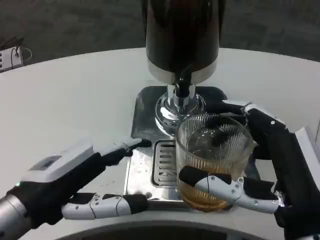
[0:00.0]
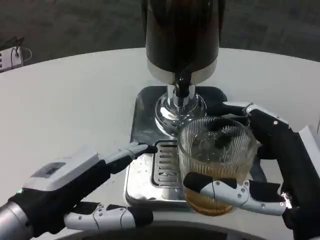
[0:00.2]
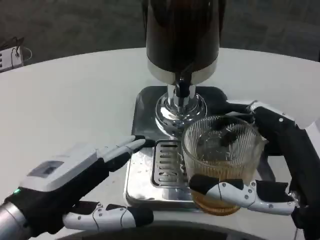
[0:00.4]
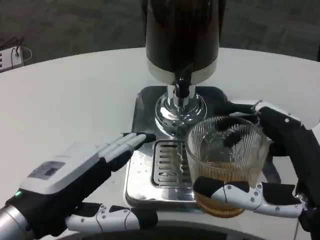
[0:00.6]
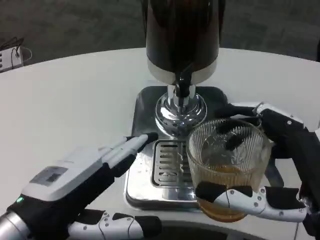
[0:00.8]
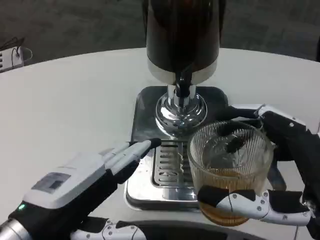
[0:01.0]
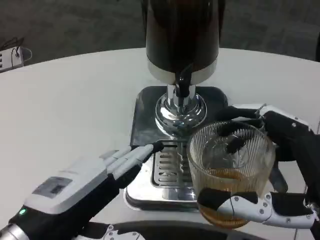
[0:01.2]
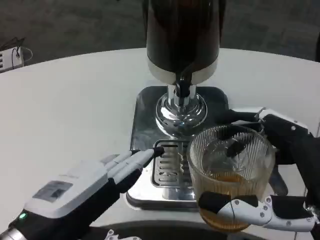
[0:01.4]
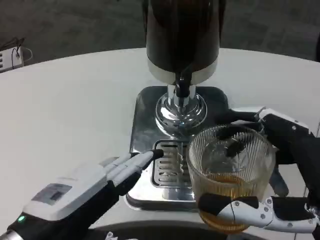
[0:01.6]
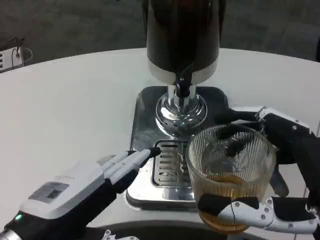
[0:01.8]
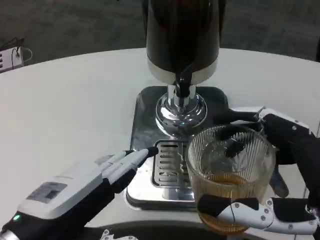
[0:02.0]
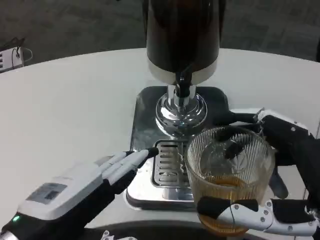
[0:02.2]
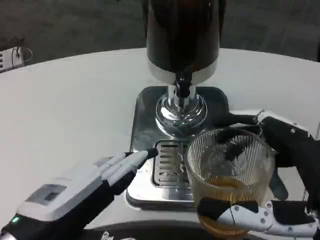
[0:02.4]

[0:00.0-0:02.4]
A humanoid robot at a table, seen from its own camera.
Task of the whole recording: Grasp the cup under the faucet to collect the drink, then remove the cup.
0:01.2 to 0:02.4: The two hands keep their place.

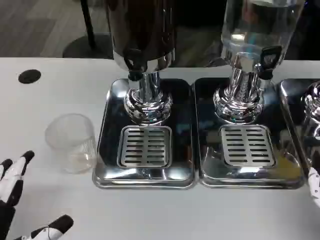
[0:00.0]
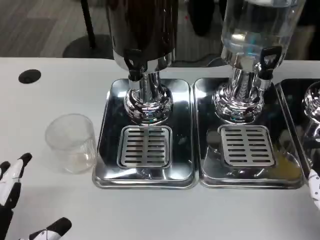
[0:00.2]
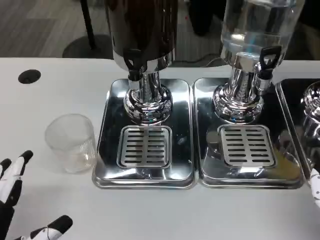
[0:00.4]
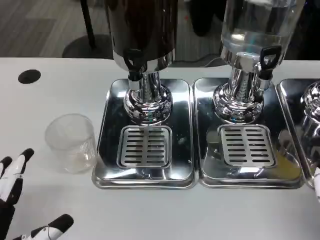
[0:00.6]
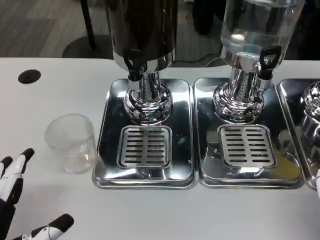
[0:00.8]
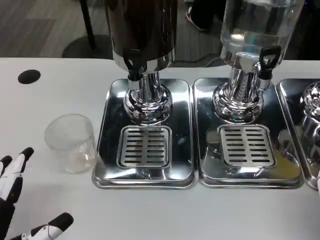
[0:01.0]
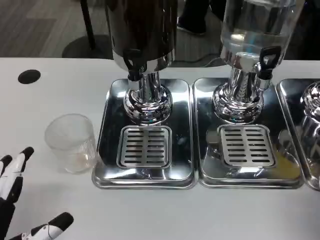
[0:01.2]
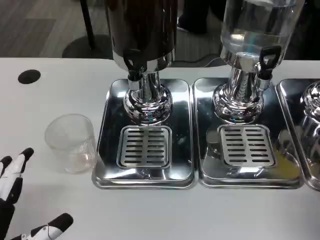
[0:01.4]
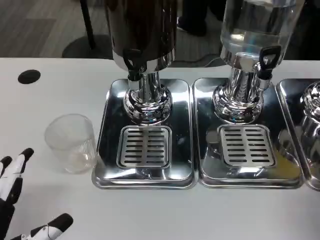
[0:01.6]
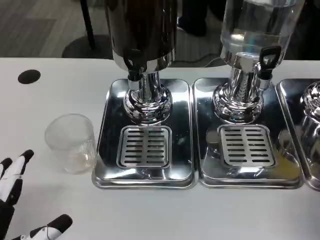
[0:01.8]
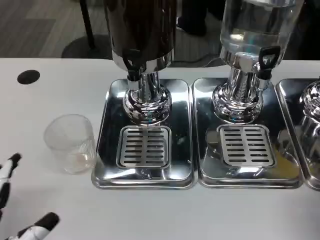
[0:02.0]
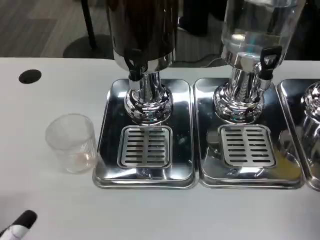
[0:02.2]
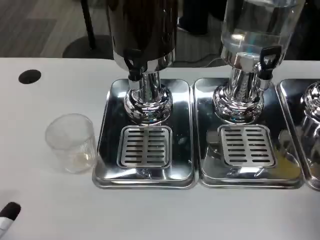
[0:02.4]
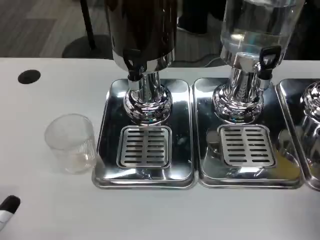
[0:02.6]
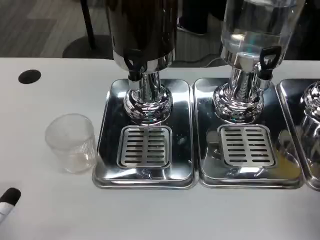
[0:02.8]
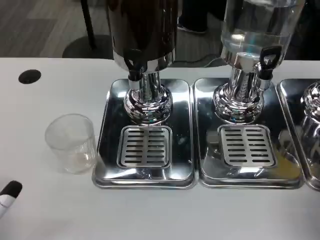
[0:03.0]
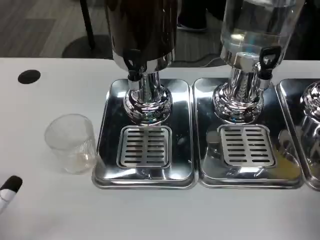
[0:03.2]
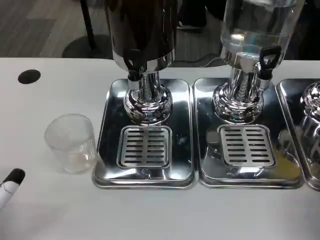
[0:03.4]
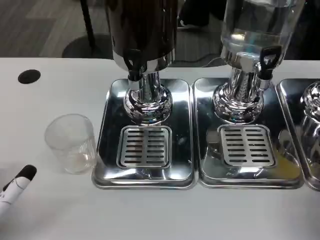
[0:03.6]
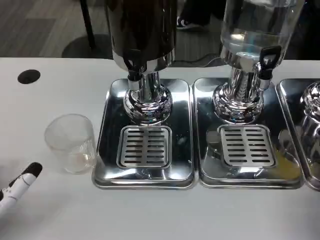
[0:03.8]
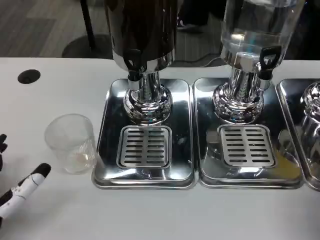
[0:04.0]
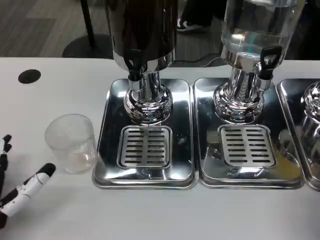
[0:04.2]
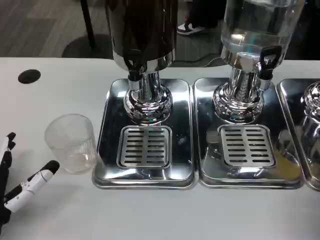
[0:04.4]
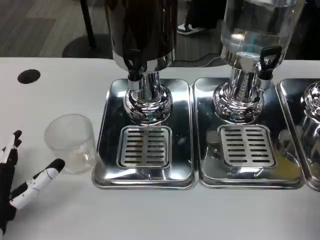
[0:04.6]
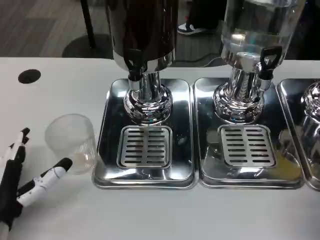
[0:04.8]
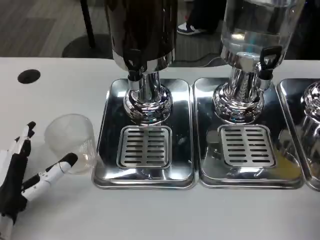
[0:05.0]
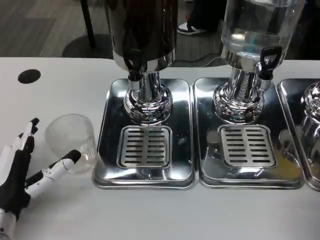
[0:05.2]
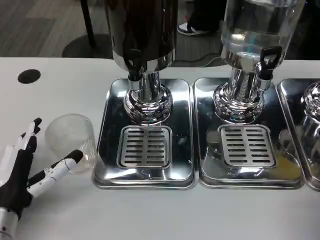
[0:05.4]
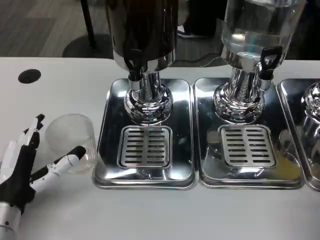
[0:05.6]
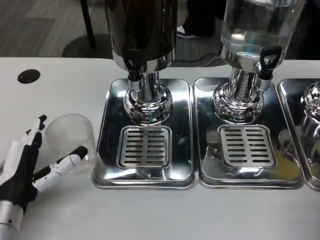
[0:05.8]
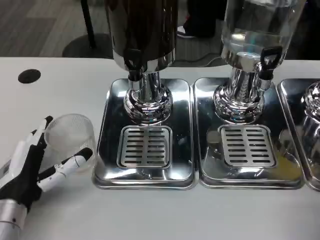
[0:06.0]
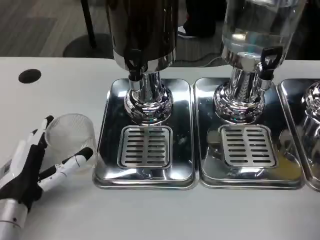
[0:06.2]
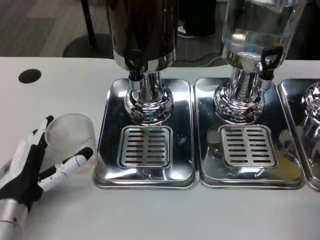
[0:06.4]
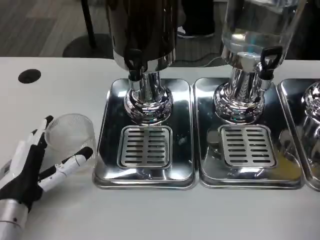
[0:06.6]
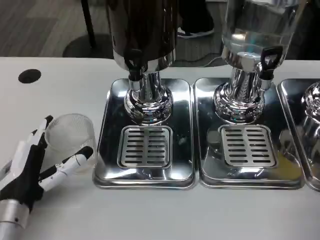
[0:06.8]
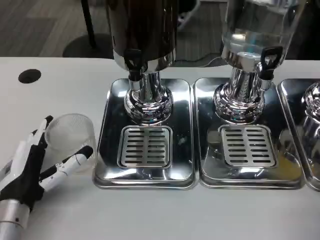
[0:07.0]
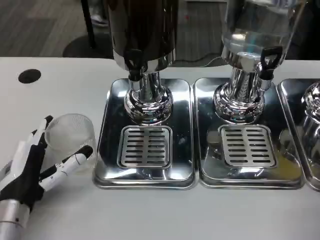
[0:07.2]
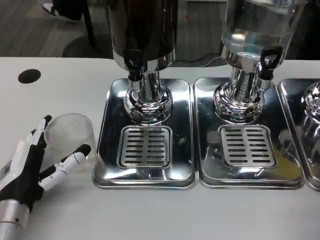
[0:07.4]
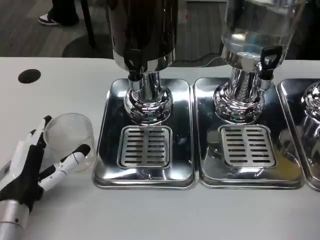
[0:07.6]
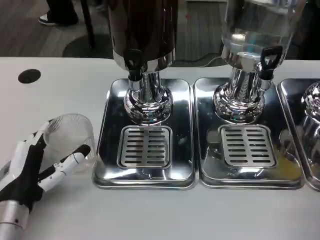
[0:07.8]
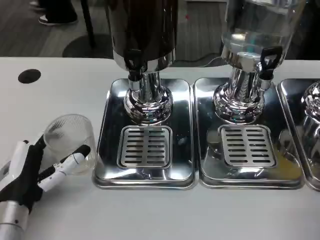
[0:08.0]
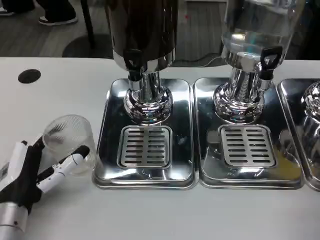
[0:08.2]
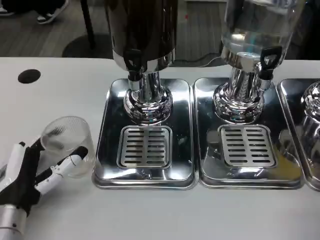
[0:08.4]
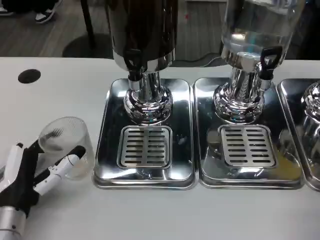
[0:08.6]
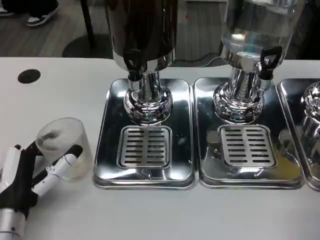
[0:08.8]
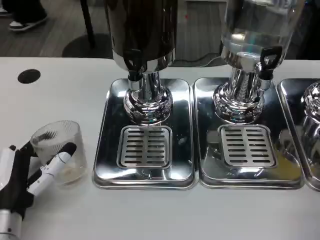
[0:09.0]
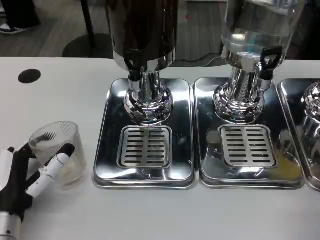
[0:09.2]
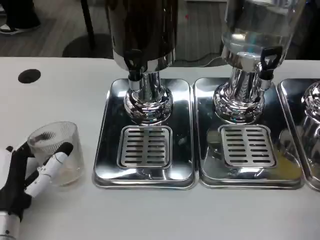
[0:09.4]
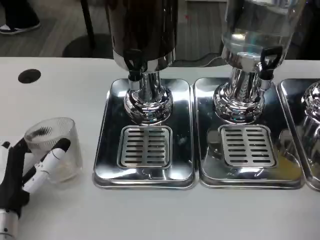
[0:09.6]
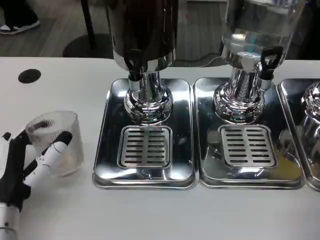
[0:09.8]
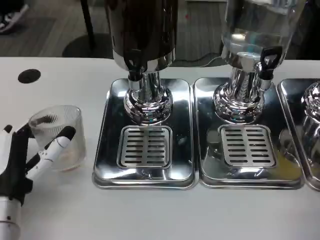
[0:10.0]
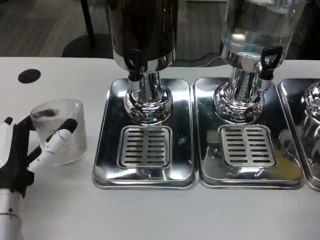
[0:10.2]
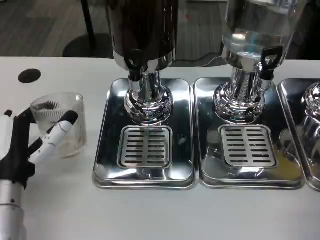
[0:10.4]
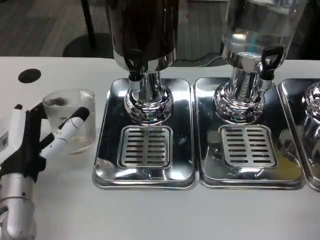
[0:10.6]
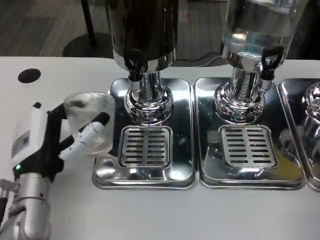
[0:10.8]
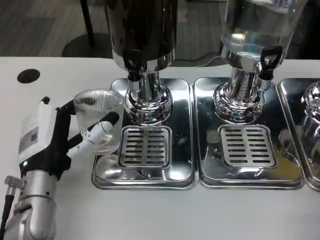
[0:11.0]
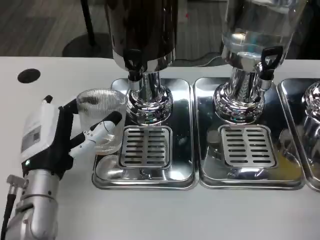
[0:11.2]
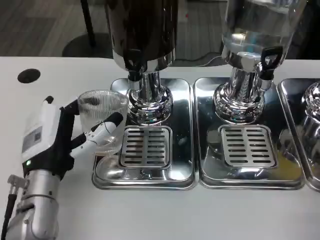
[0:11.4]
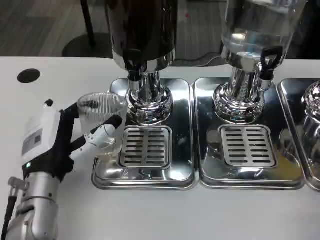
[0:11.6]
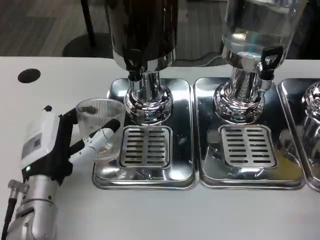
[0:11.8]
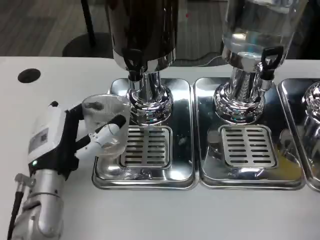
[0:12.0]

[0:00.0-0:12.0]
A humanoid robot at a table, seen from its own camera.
Task of the whole recording: Grasp the cup under the faucet to collect the drink, then remove the cup.
0:00.0 to 0:01.6: Both hands stay about where they are.
0:03.0 to 0:04.4: The left hand is displaced forward by some 5 cm.
0:04.4 to 0:06.0: The hands make only small movements.
0:06.0 to 0:07.6: Both hands stay put.
0:07.6 to 0:10.4: There are only small adjustments of the hands.
0:10.4 to 0:12.0: The left hand ends up roughly 5 cm from where it was.

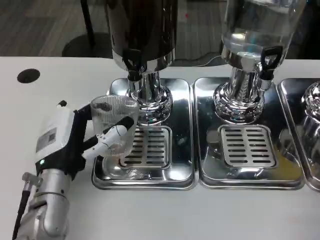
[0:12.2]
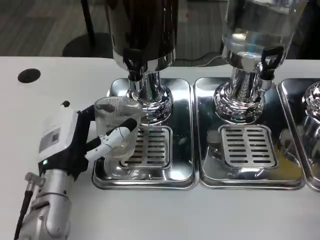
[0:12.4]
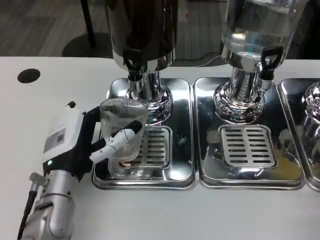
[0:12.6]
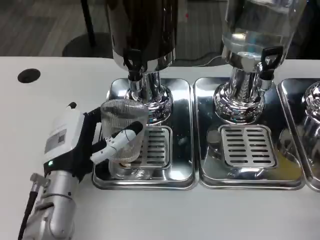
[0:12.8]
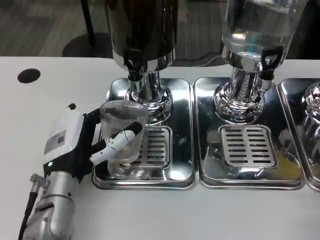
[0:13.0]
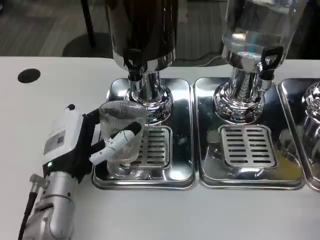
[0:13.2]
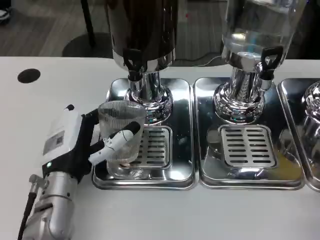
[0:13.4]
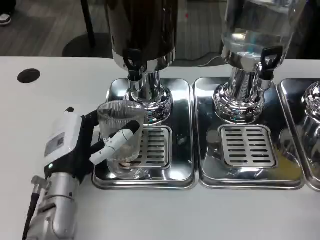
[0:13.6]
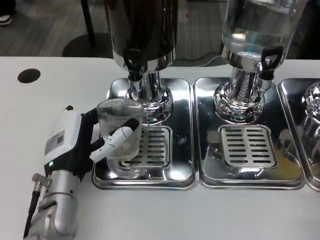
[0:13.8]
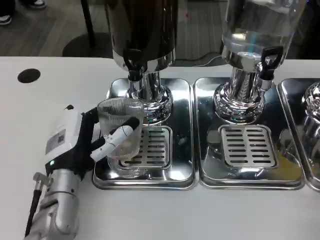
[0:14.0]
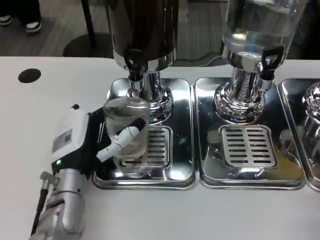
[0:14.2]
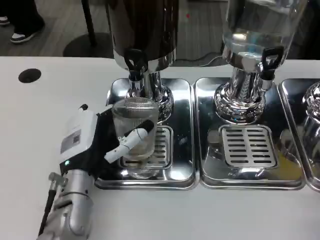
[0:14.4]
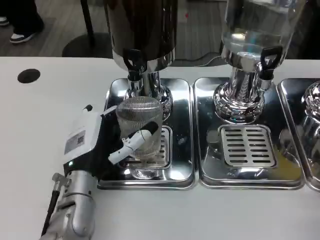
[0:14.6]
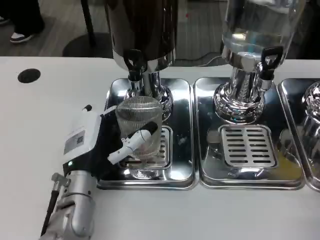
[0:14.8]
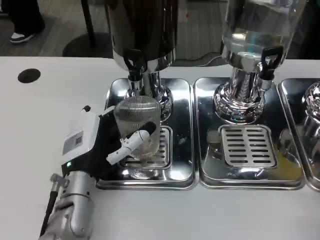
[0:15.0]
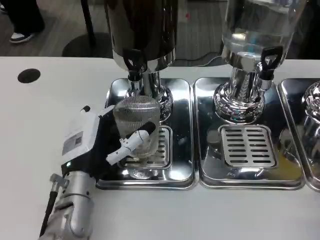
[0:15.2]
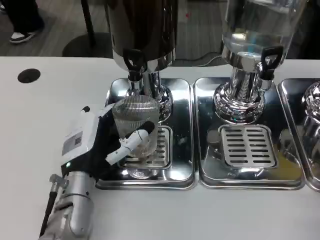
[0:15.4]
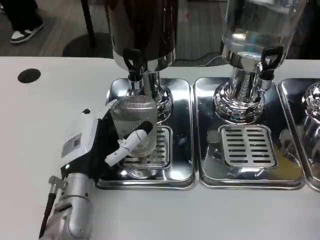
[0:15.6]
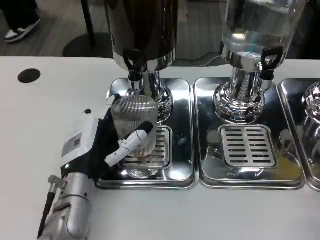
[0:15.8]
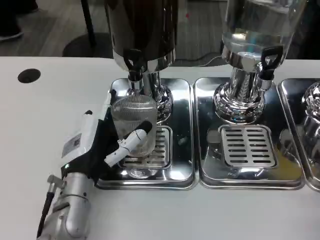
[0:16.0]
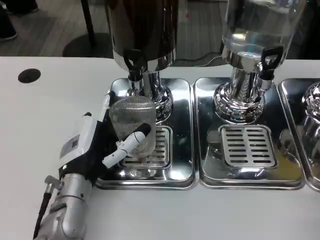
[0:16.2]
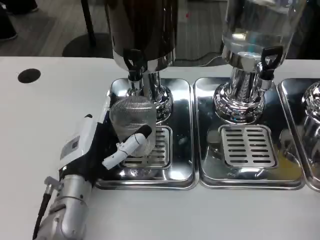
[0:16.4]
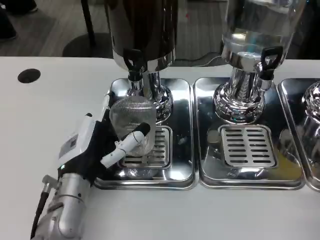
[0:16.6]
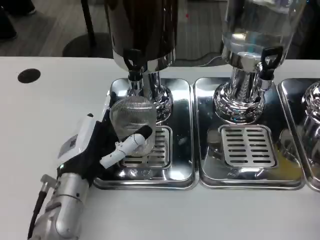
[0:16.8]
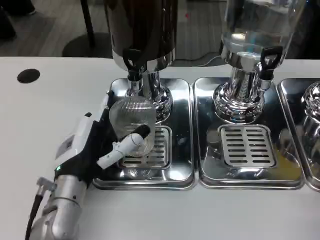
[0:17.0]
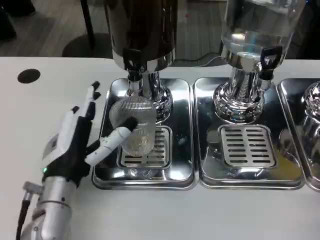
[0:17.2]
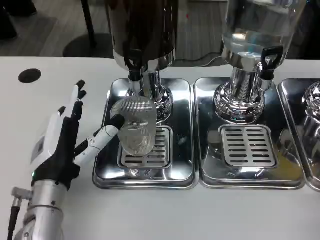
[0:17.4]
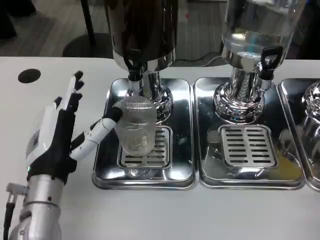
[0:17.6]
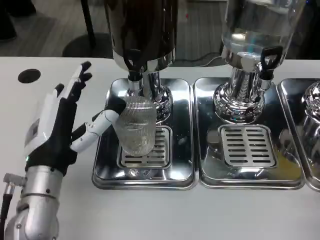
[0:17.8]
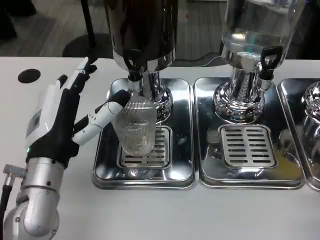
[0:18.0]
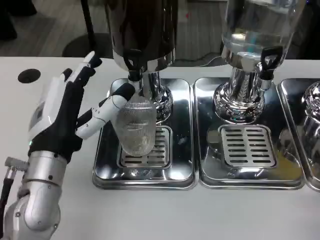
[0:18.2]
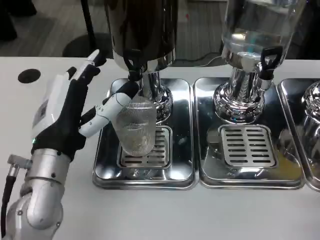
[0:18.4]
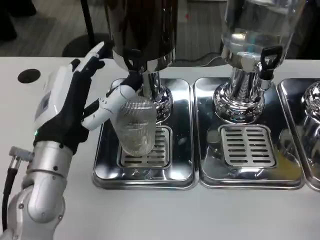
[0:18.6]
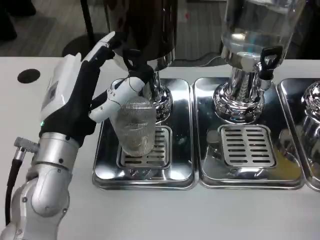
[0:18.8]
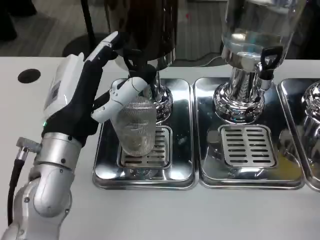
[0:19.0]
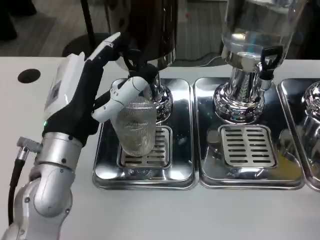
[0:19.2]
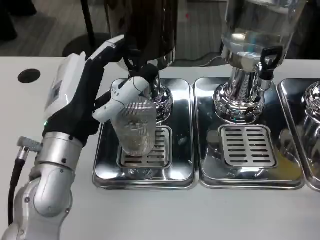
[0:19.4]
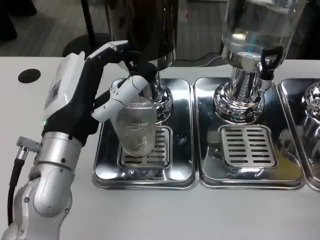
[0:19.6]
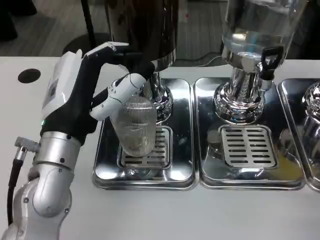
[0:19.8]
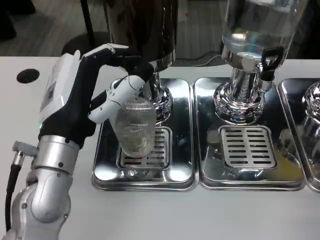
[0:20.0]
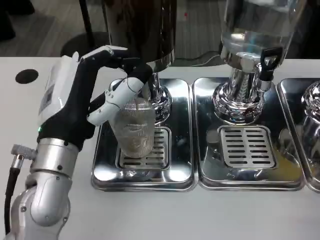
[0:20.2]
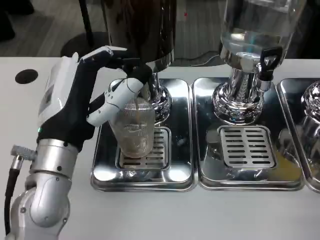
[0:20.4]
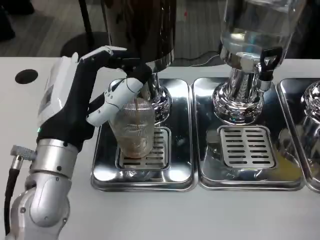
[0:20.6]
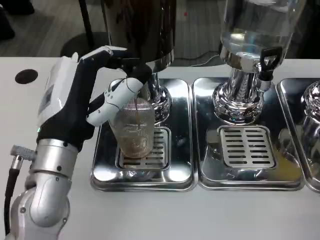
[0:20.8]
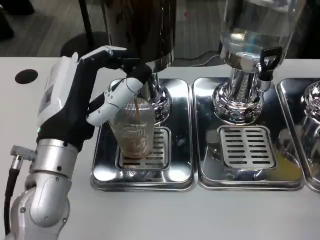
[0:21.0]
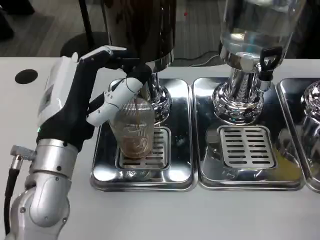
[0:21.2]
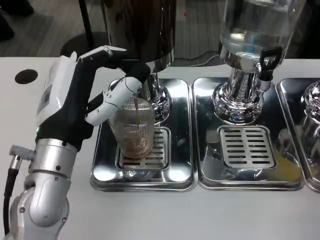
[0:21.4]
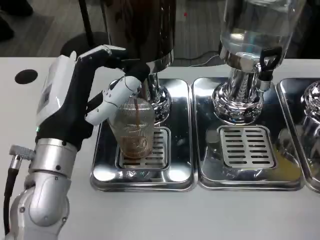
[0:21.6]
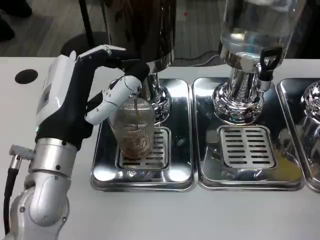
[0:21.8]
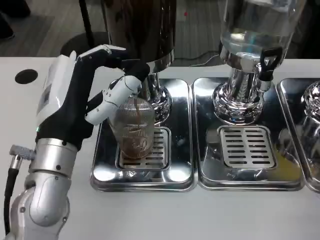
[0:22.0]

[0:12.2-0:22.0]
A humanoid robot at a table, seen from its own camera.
Task of the whole recording: Grasp the cup under the faucet to collect the drink, then remove the cup.
0:12.2 to 0:13.6: Both hands stay about where they are.
0:13.6 to 0:16.4: There are only small adjustments of the hands.
0:16.4 to 0:17.8: The left hand travels upward by roughly 5 cm.
0:17.8 to 0:19.2: The left hand moves upward, approximately 5 cm.
0:20.6 to 0:22.0: Neither hand changes place.
